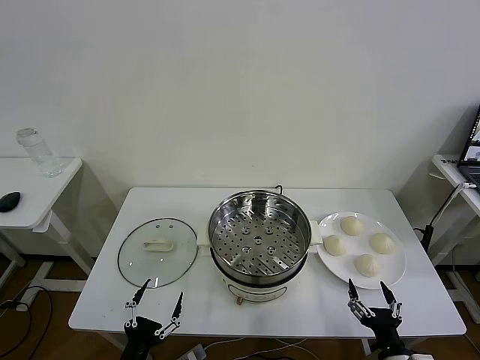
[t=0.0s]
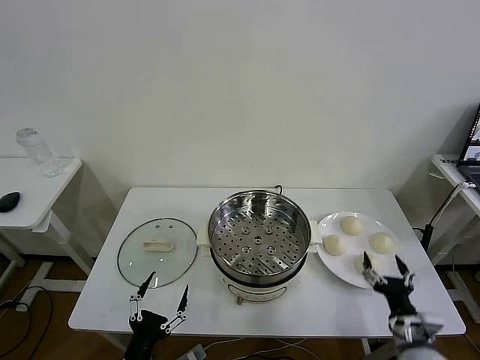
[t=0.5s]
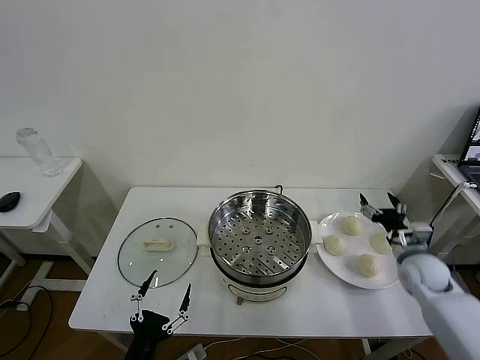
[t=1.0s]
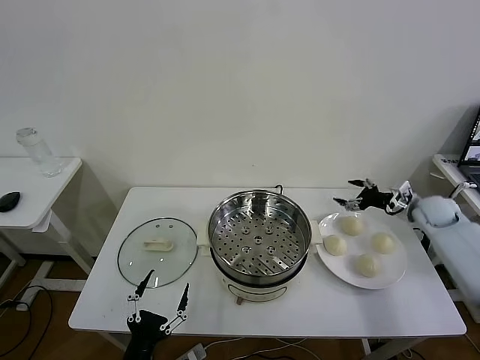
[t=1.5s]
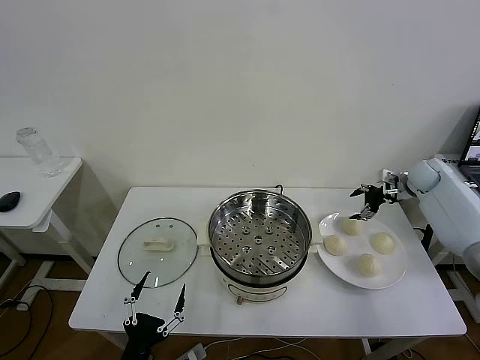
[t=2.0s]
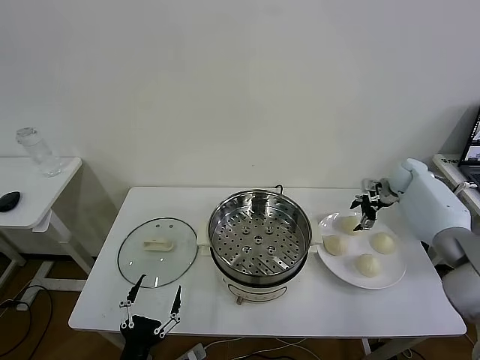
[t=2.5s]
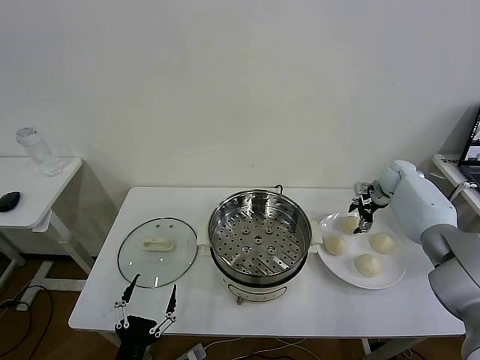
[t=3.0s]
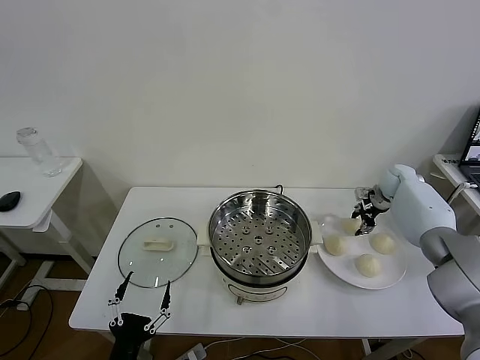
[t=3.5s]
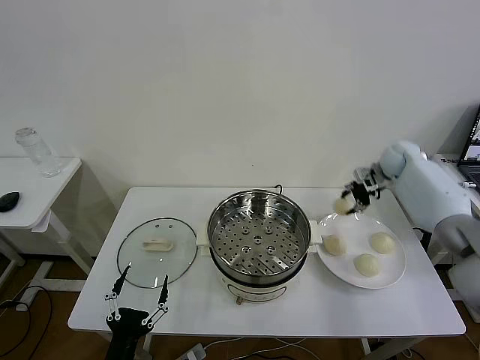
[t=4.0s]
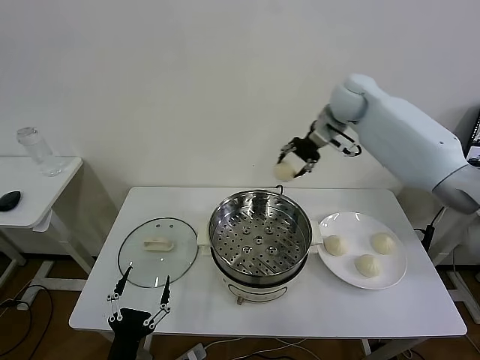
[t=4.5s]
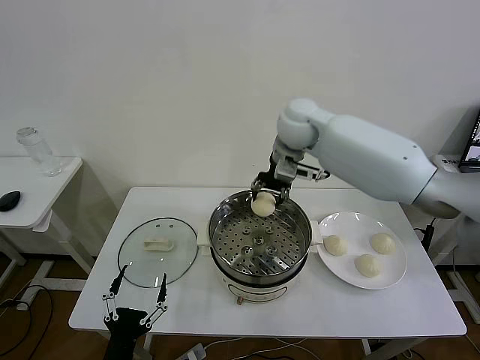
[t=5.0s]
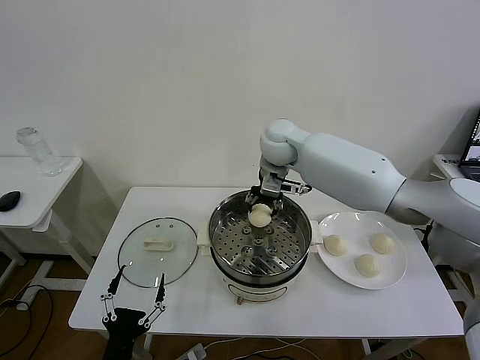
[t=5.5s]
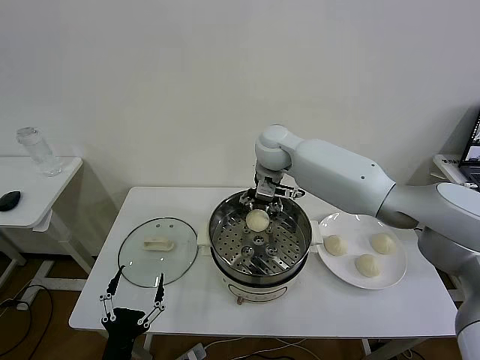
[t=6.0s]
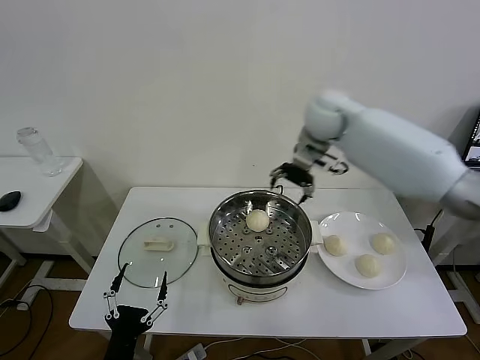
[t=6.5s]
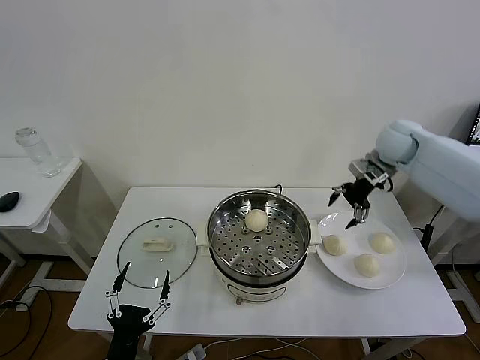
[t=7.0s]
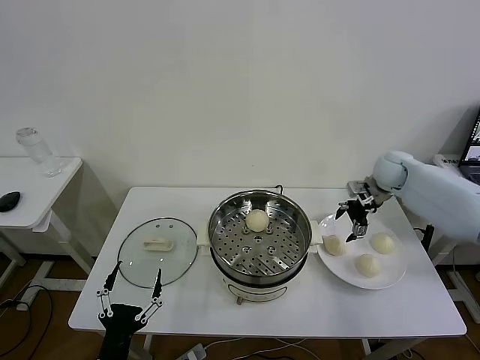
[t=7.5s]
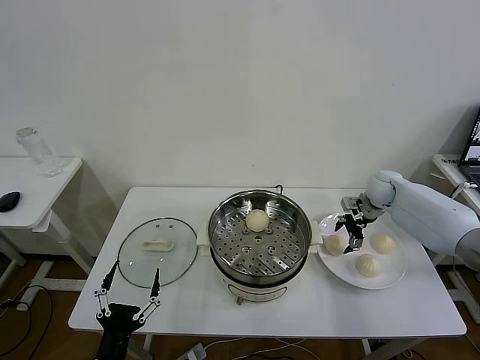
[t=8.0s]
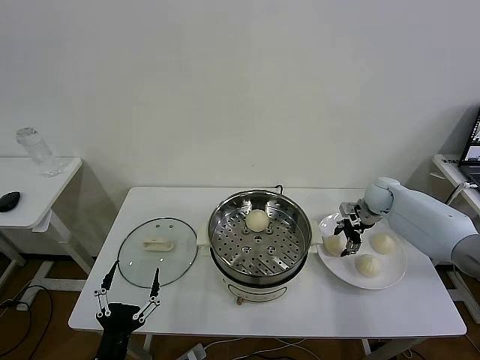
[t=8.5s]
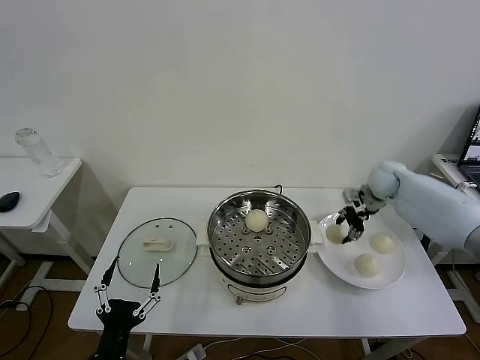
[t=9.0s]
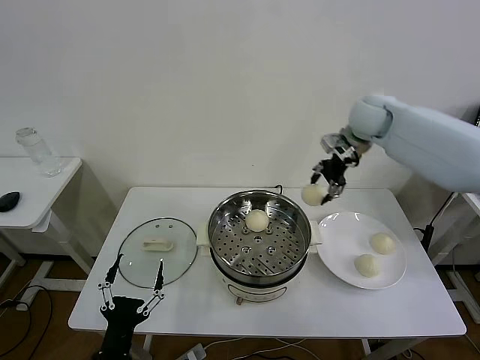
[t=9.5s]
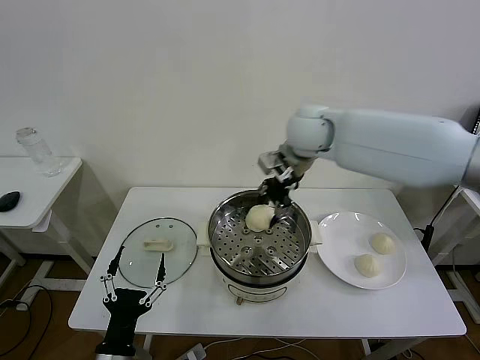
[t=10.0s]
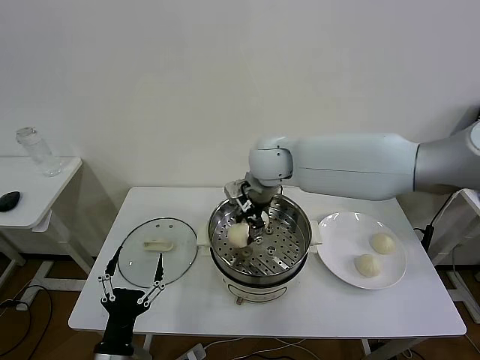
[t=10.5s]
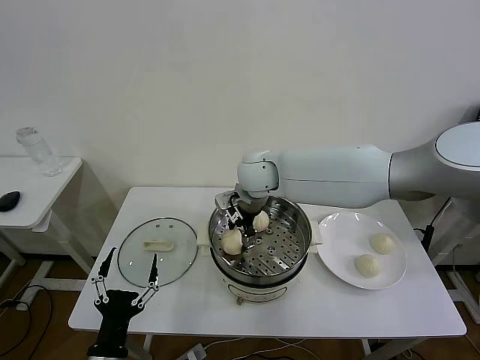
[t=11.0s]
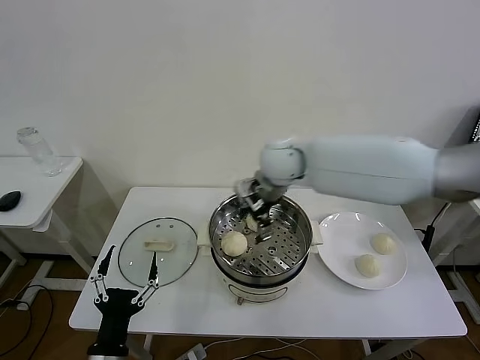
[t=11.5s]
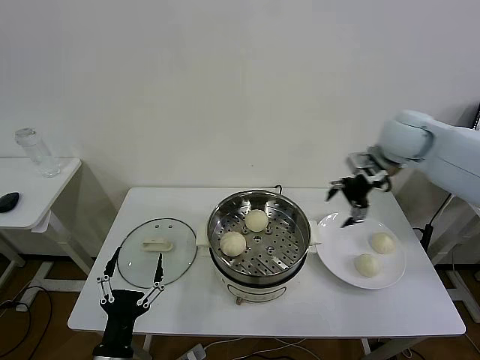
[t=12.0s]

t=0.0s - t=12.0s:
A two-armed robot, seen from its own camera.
Task of the whole recording: take steamed baozi put them in steamer then cover it.
Step, t=0.0s - t=3.5s: Grasp the baozi in the plate with right gripper.
Step, t=4.0s - t=6.0s: Place the baozi on the steamer with right gripper.
Step, t=6.5s - t=8.5s: Grasp the baozi in the plate with right gripper.
Step, t=9.0s - t=11.5s: Place the baozi on the steamer with right gripper.
t=2.0s - t=4.0s: The right gripper is displaced to the left and upward by about 10 cm, and closes.
t=4.0s - t=6.0s: The right gripper moves to the left, about 30 cm, and opens up.
t=6.0s - t=8.0s: The right gripper moves to the right and downward, approximately 35 cm.
t=8.0s - t=10.0s: The right gripper heads to the left and upward, covering some 35 cm, and closes.
t=10.0s - t=12.0s: The right gripper goes roughly 25 cm to the right, and opens.

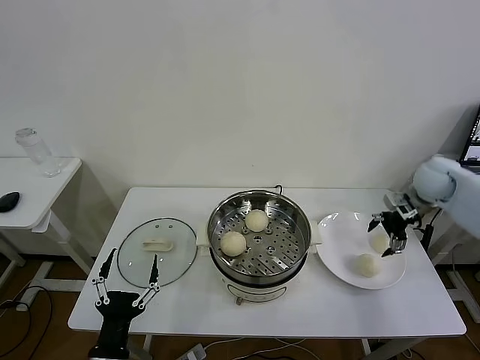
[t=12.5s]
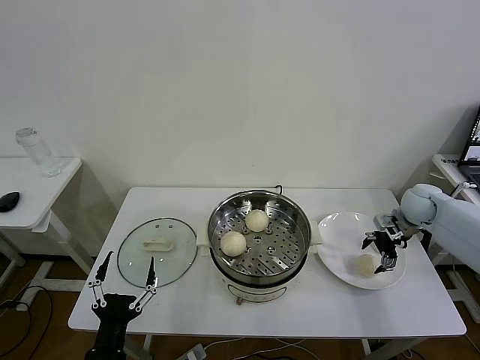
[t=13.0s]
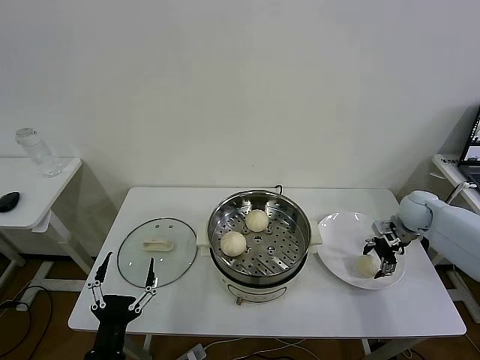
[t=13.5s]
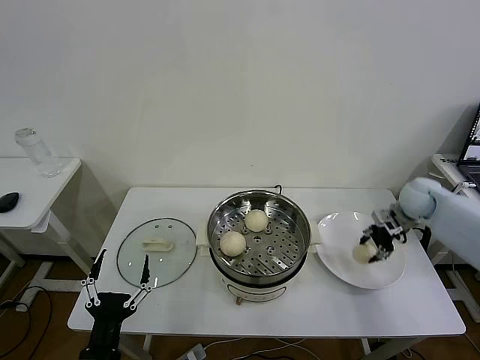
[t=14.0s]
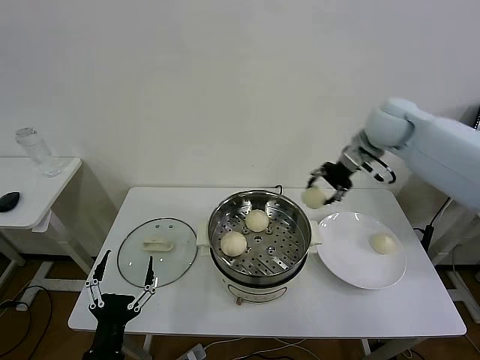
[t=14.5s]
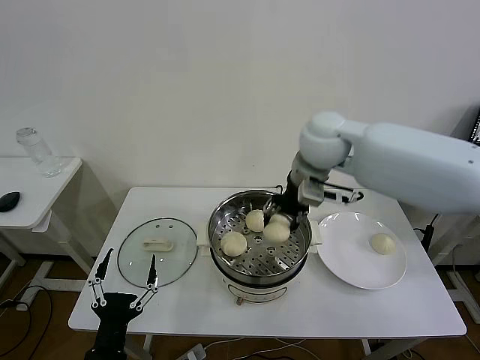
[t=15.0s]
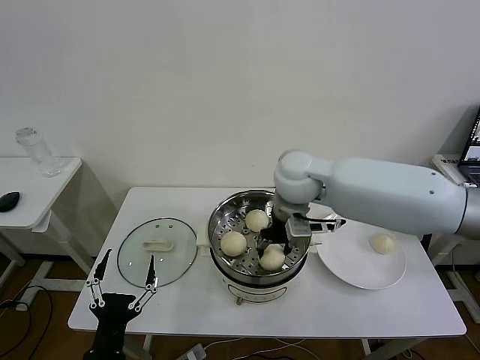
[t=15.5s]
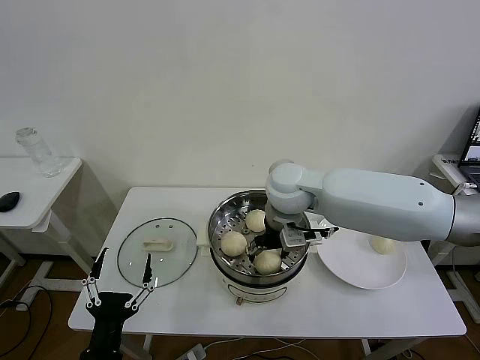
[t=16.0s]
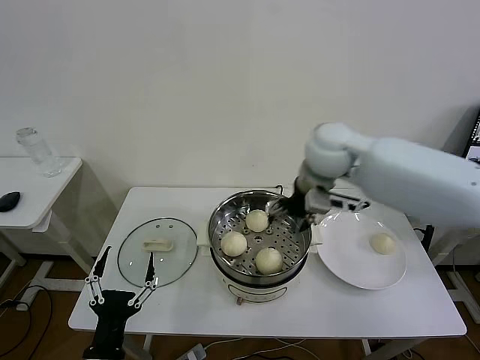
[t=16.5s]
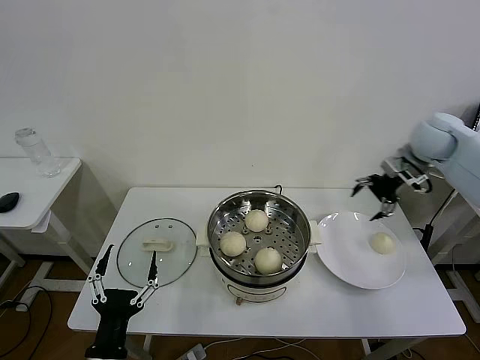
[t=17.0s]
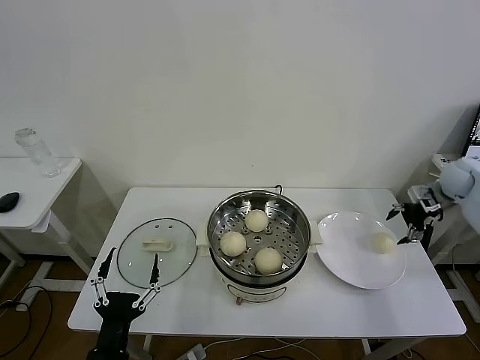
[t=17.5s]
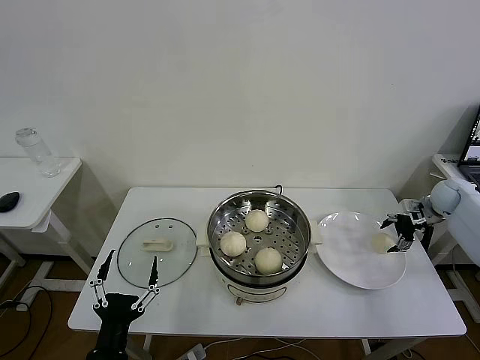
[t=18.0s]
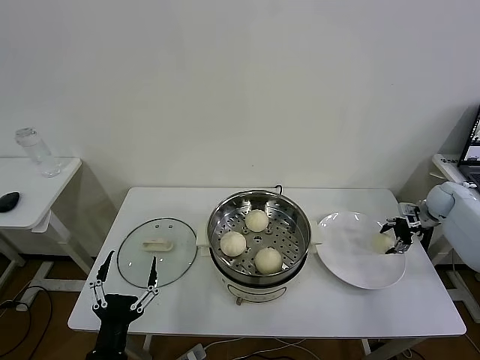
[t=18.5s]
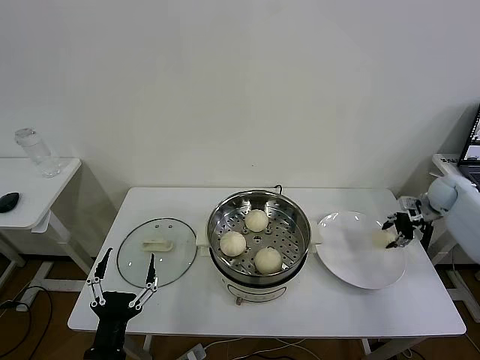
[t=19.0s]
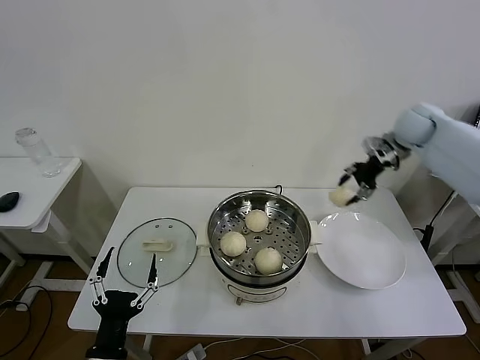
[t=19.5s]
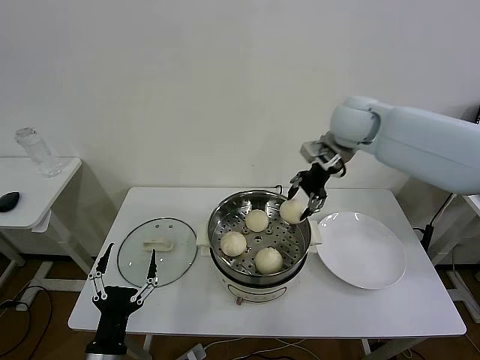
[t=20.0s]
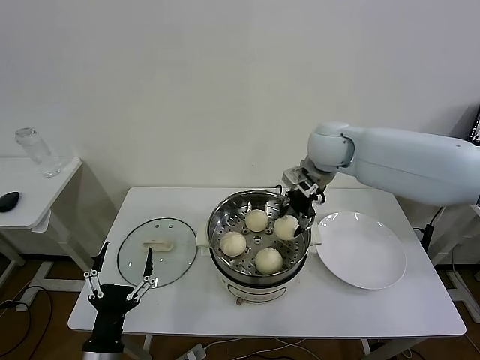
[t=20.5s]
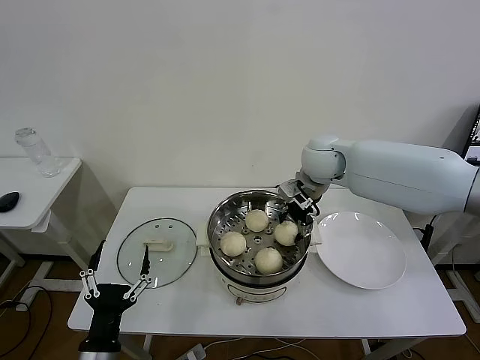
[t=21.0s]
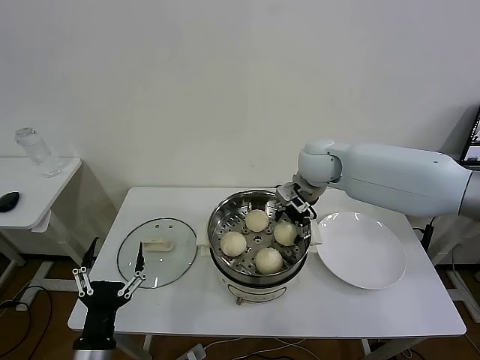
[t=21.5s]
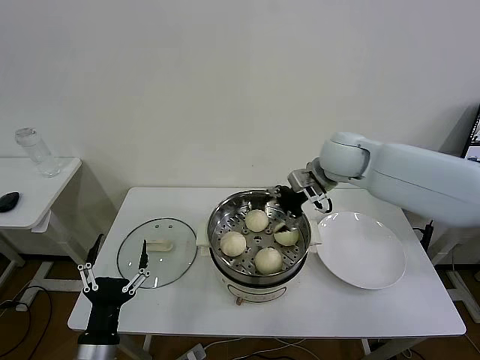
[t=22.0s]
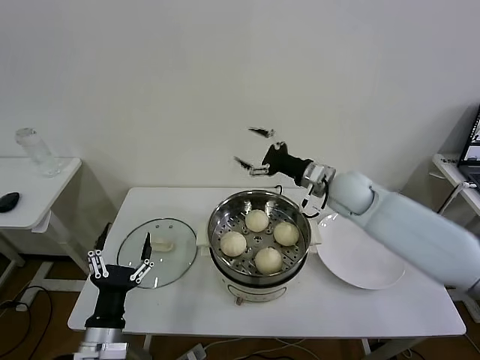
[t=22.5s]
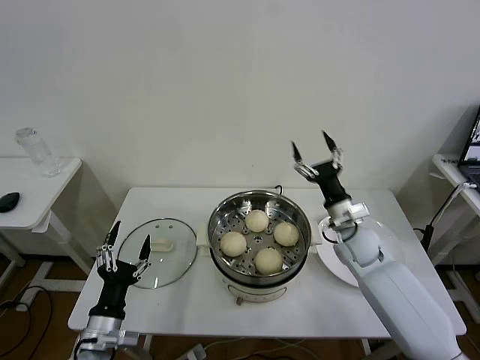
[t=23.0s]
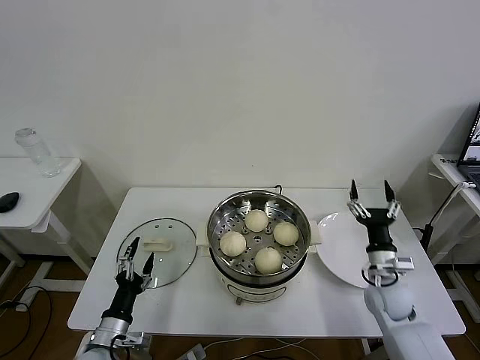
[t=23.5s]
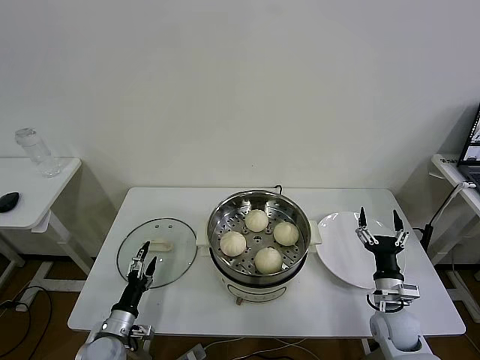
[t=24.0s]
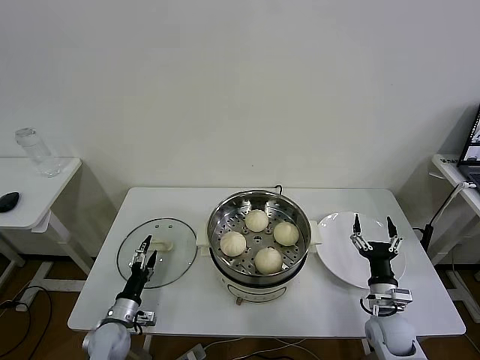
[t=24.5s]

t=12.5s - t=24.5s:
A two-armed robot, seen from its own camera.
Task of the whole recording: take steamed baozi put them in steamer then cover it.
Step, t=14.0s - t=16.5s: Place the baozi on the steamer with right gripper.
Step, t=17.0s - t=18.5s: Grasp the baozi in the plate with right gripper.
Step, t=19.0s - t=21.0s: Place the baozi on the steamer with right gripper.
t=12.5s - t=14.5s: The right gripper travels to the left and upward by some 25 cm, and closes up.
t=14.5s - t=16.5s: The right gripper heads to the left and backward, covering roughly 10 cm, and opens its fingers.
t=16.5s - t=18.5s: The right gripper travels to the right and downward by some 40 cm, and closes up.
t=18.5s - t=20.5s: The right gripper heads to the left and upward, covering roughly 40 cm, and closes.
t=20.5s - t=22.5s: The right gripper is displaced downward and to the right by roughly 10 cm, and opens up.
t=22.5s - t=24.5s: The right gripper shifts approximately 35 cm downward, backward and to the right. Meanwhile the left gripper heads downward, forward and to the left, covering some 25 cm.

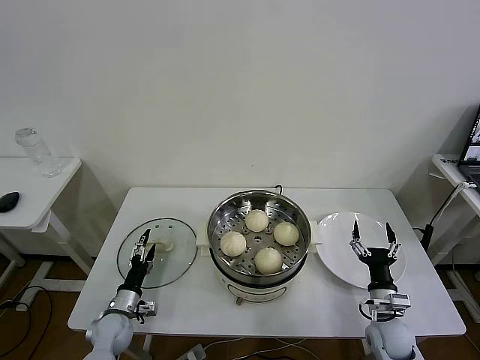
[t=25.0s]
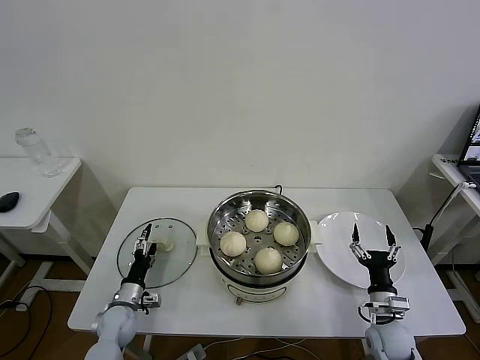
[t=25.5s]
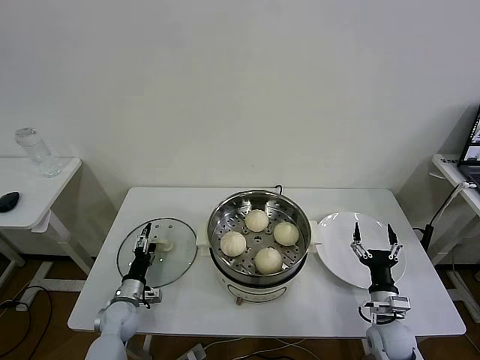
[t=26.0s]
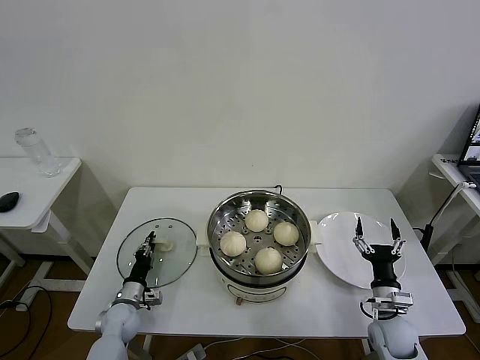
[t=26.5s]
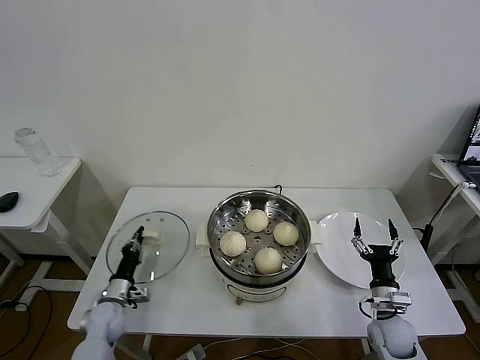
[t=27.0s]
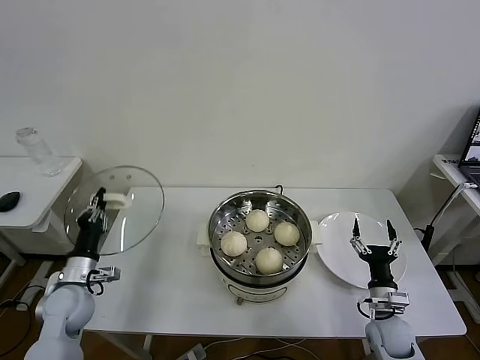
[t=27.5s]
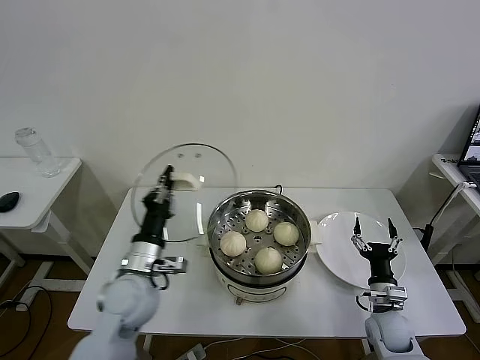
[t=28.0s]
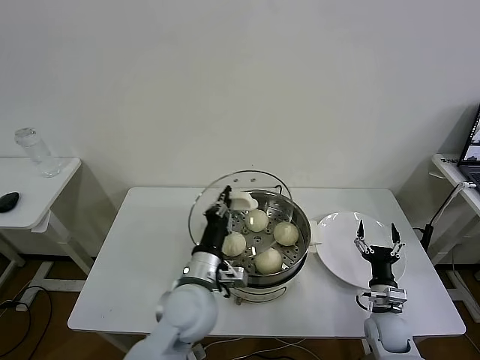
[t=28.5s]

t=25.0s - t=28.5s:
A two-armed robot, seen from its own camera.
Task of the whole recording: take steamed baozi put them in steamer then cover it.
t=25.0s - t=27.0s: The left gripper closes up.
t=27.0s - t=28.5s: The left gripper travels to the right and upward by roughly 35 cm.
